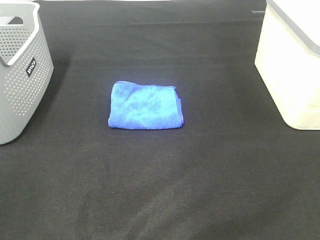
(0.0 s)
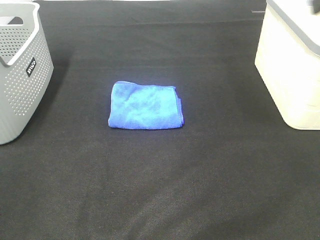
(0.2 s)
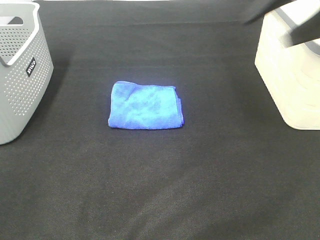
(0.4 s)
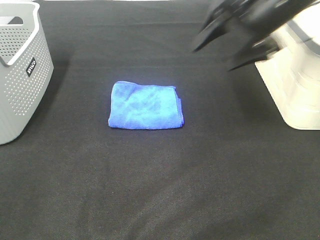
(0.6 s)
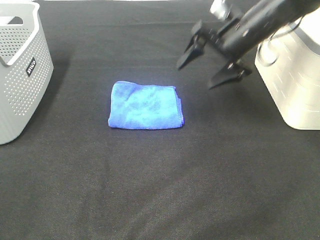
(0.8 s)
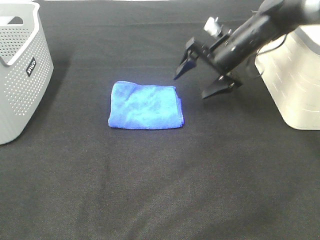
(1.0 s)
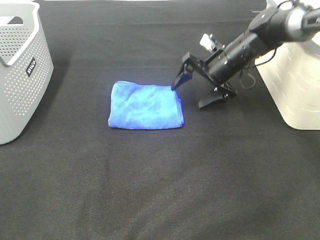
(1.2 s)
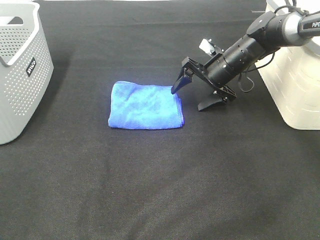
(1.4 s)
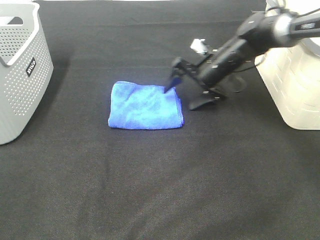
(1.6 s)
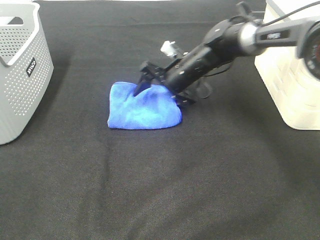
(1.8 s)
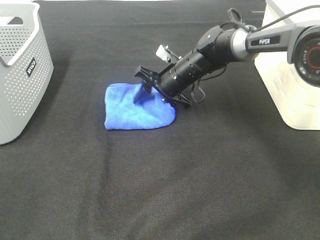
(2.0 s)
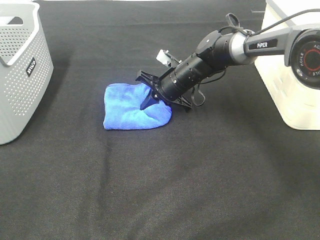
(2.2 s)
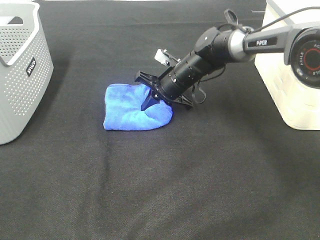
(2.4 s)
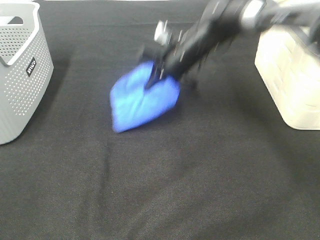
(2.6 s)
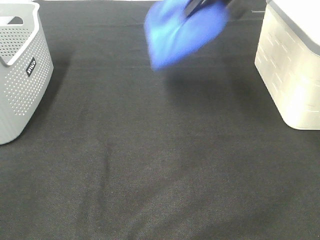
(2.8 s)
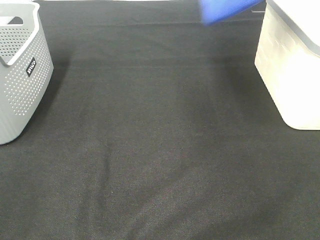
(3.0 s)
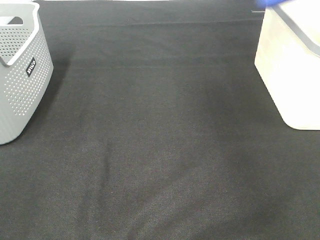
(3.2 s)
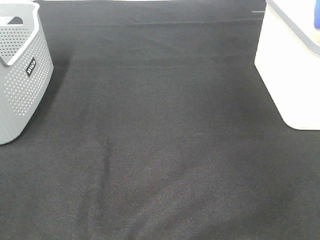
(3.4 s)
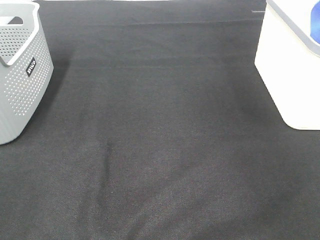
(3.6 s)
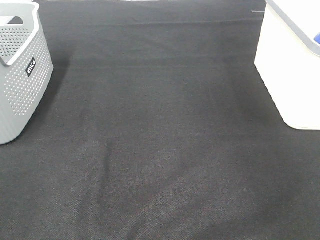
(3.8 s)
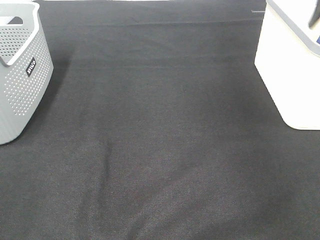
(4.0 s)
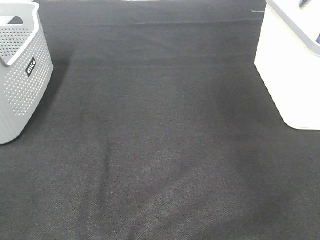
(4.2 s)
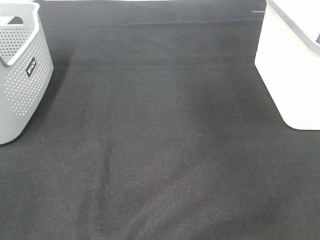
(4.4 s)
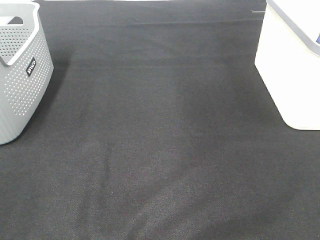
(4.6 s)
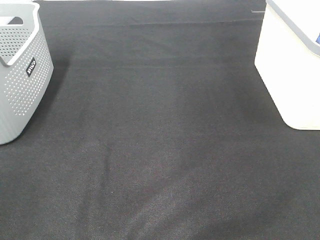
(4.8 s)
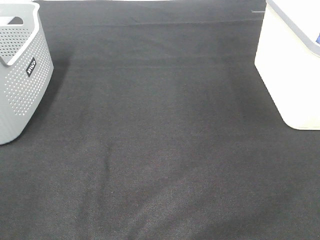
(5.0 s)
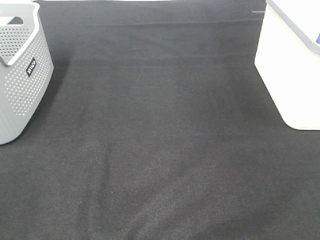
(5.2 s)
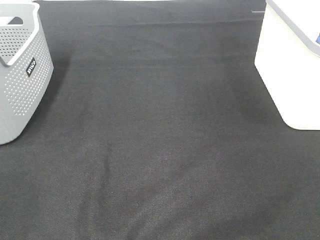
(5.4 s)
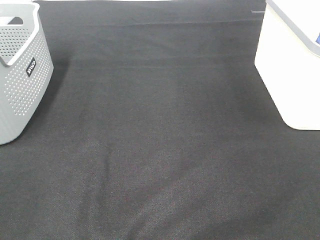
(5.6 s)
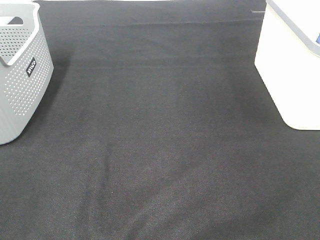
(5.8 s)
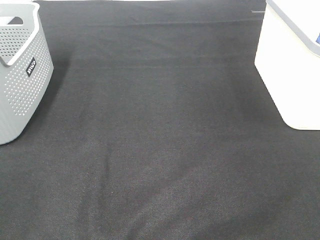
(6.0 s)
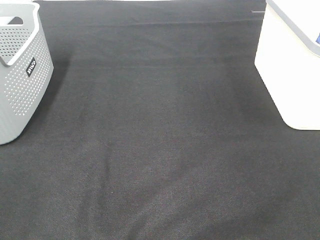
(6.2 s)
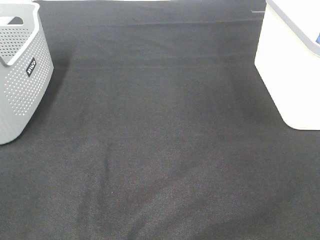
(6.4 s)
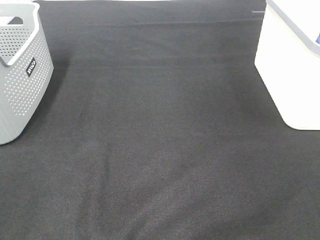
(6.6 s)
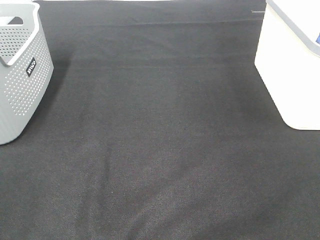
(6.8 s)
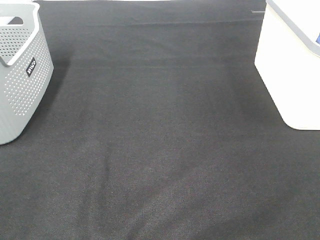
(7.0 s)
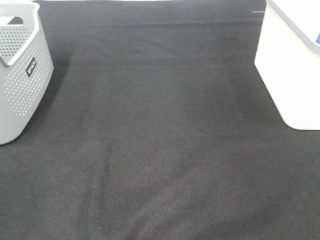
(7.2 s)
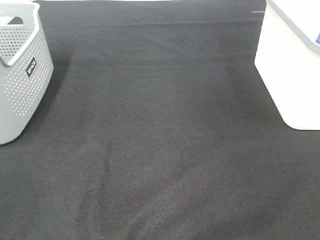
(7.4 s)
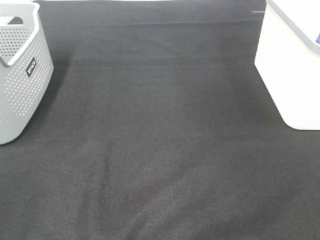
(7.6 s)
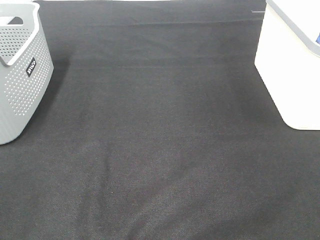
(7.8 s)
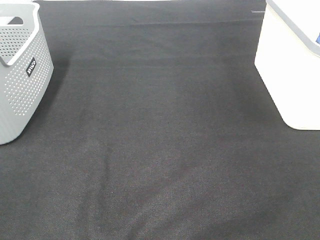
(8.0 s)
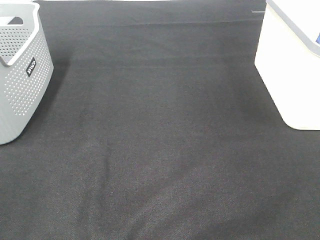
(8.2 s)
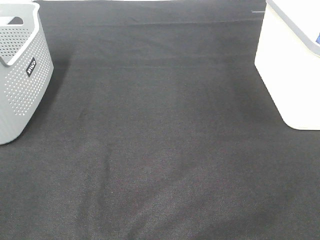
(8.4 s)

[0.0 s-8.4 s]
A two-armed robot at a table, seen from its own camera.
Step, 0.0 to 2.2 s: Right hand: grab the folded blue towel.
Step, 2.4 to 3.8 s: Right hand: place the blue towel in right basket.
0.0 to 1.4 s: The right gripper is displaced downward, forward and to the left by approximately 40 cm.
1.4 to 2.8 s: The right gripper travels upward by approximately 20 cm, and closes its fingers.
2.8 to 4.2 s: The right gripper is displaced to the right by some 20 cm, and opens.
5.6 to 8.4 s: Neither gripper changes place.

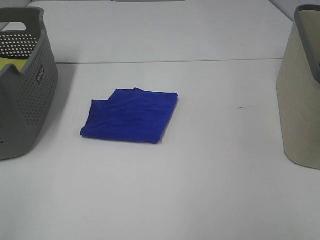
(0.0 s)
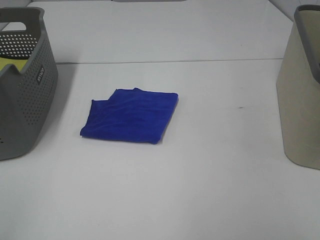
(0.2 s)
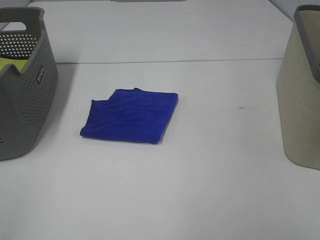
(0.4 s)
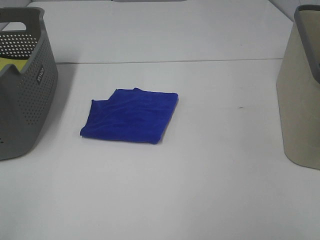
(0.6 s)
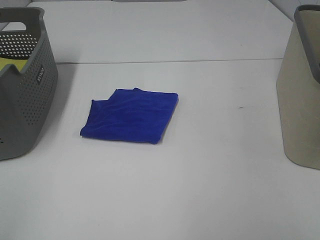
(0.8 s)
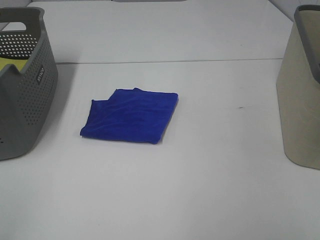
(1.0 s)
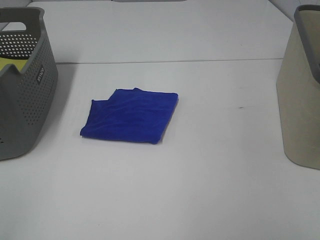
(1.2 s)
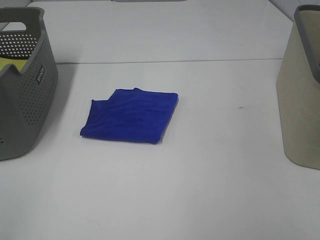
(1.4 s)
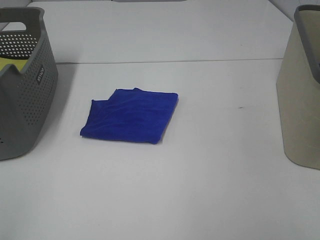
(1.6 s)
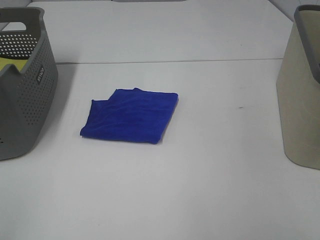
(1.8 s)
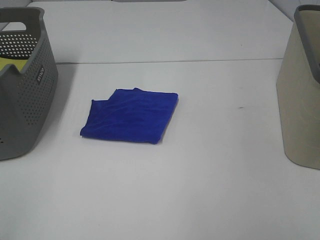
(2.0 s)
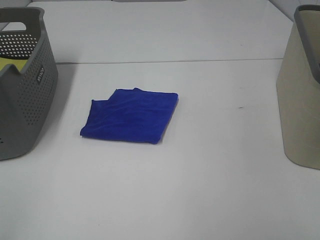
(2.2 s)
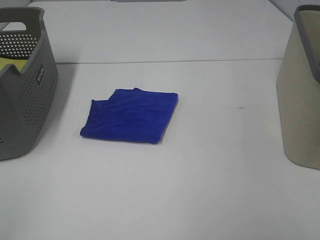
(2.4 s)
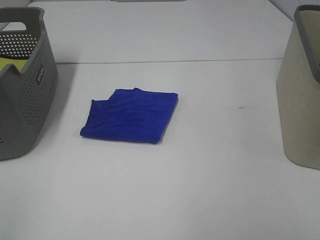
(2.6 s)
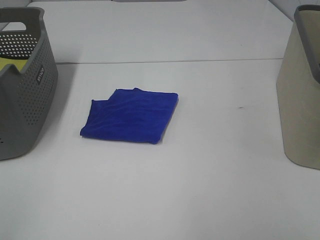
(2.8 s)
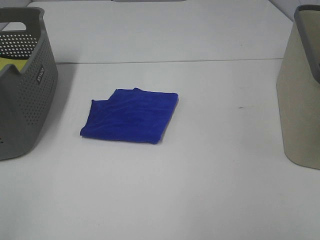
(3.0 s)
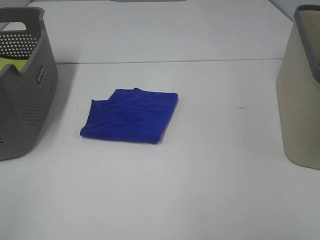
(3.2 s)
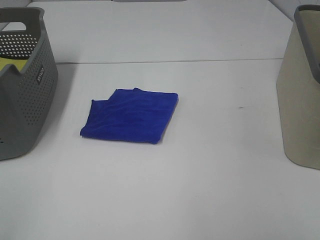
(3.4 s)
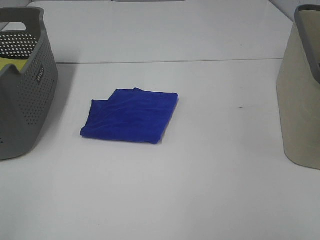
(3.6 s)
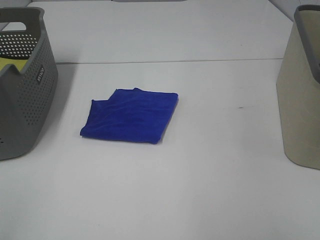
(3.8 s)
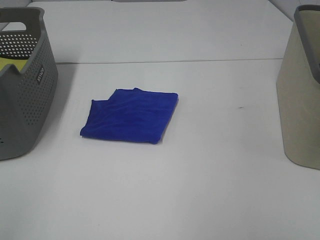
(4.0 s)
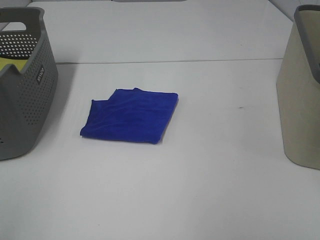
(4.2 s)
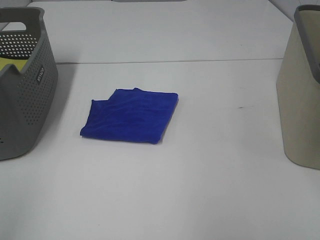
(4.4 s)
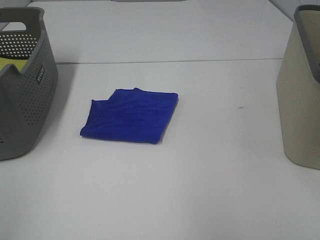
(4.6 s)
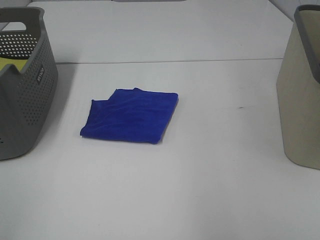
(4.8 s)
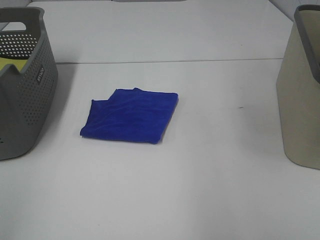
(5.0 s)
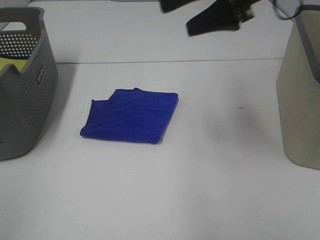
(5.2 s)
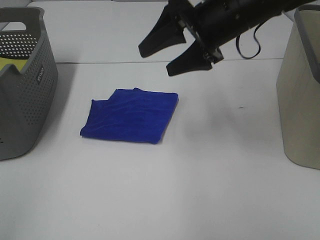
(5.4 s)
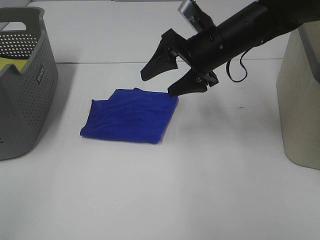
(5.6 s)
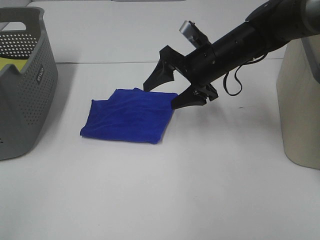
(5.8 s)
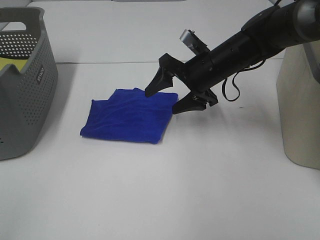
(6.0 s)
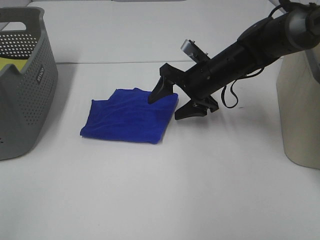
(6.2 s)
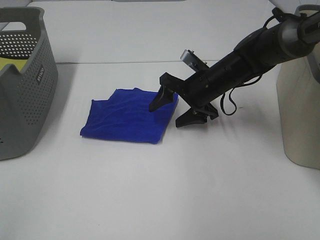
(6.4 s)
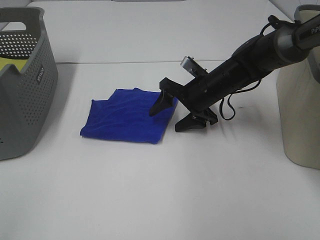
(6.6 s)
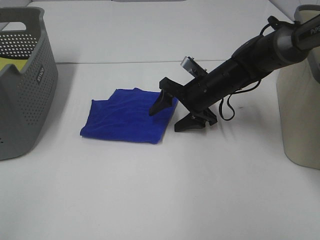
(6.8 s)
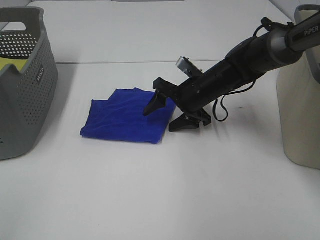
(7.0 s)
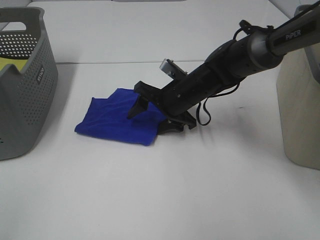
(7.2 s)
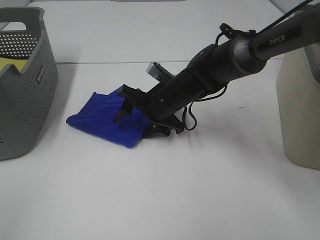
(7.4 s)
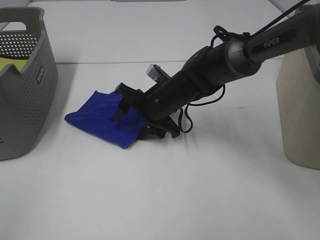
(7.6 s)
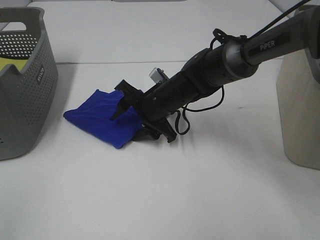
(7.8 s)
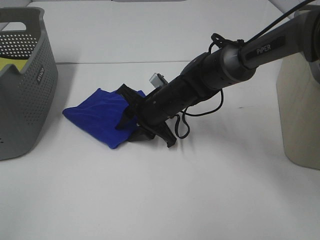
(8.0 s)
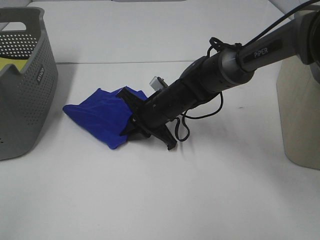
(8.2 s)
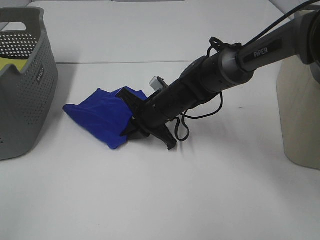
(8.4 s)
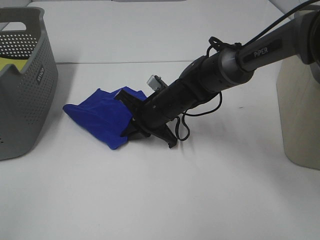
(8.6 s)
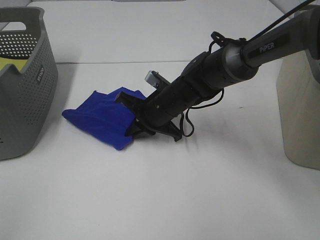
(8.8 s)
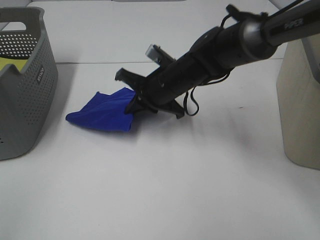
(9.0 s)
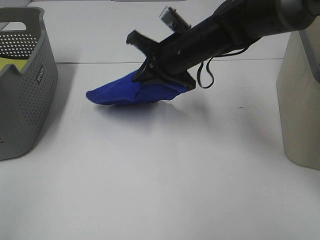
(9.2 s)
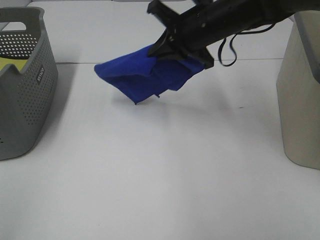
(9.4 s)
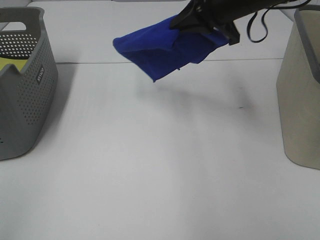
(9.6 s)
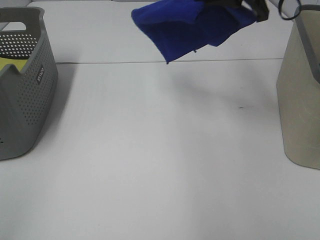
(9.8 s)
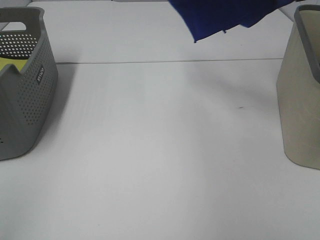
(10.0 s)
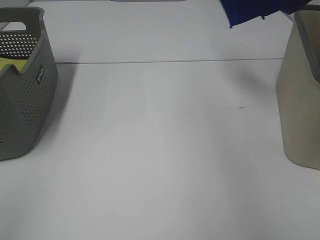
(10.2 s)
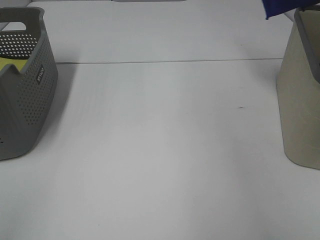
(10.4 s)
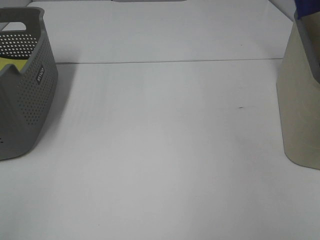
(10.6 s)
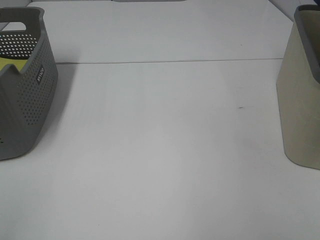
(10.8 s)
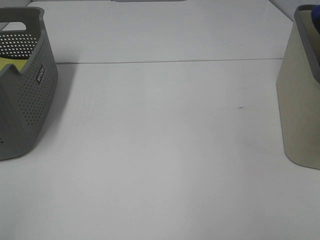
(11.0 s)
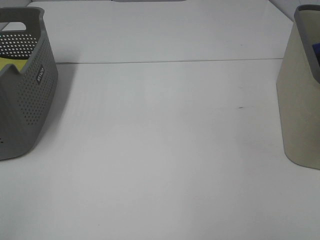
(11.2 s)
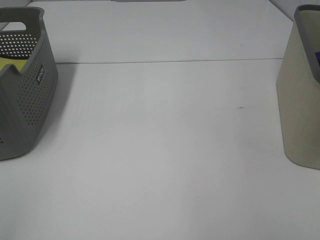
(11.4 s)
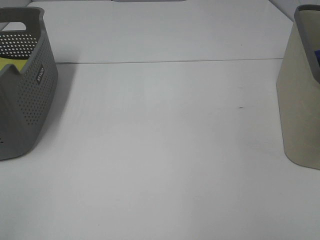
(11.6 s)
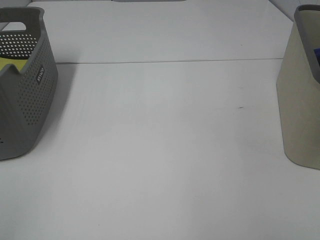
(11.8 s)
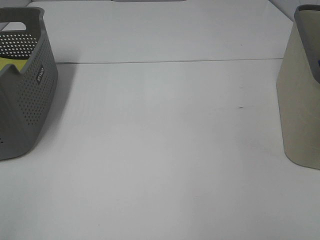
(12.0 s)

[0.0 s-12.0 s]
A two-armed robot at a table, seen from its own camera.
Step, 0.0 to 8.4 s: Right hand: grab the folded blue towel.
0.0 to 3.0 s: Neither gripper changes place.
4.4 to 6.0 s: The right gripper shifts approximately 40 cm forward, downward and to the left.
6.0 to 7.6 s: The right gripper travels to the left and downward by some 10 cm.
7.6 to 9.0 s: The right gripper shifts about 5 cm upward, and closes its fingers.
9.0 to 10.4 s: The right gripper goes roughly 40 cm to the right and upward.
10.4 to 12.0 s: The right gripper shifts approximately 15 cm downward and to the right.
